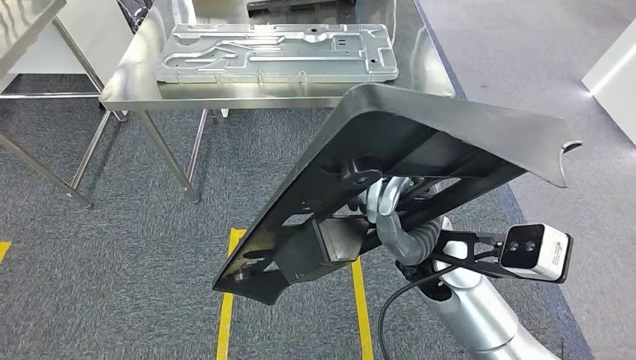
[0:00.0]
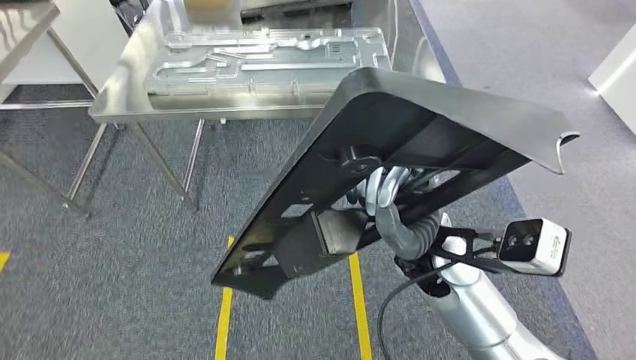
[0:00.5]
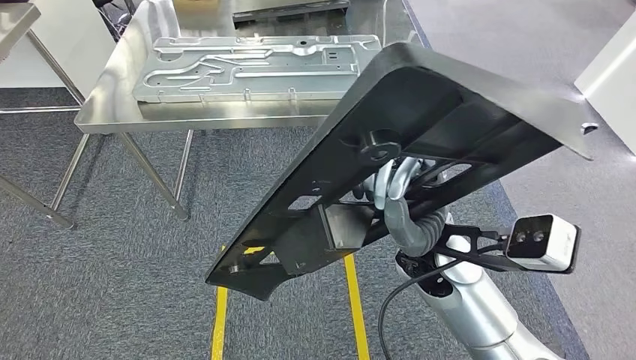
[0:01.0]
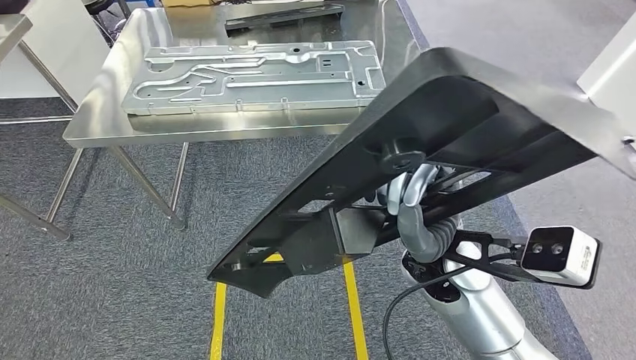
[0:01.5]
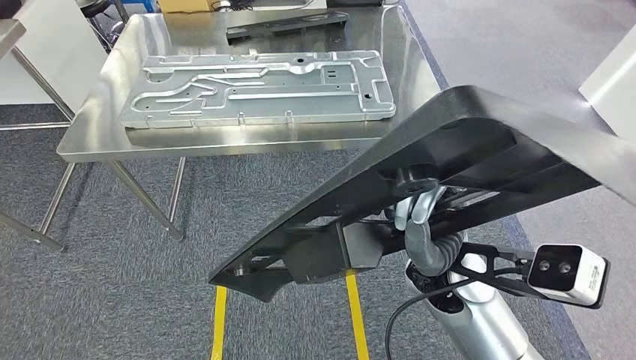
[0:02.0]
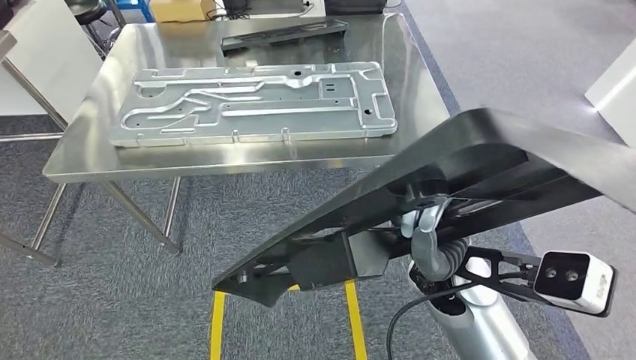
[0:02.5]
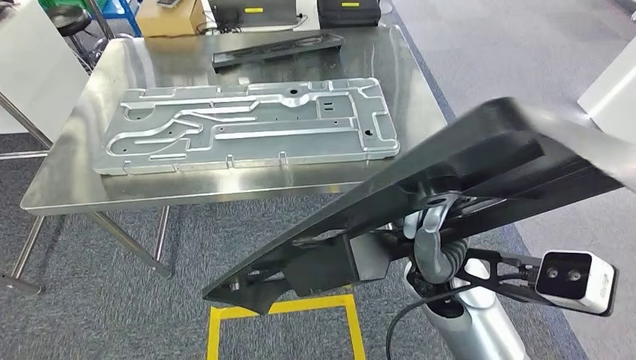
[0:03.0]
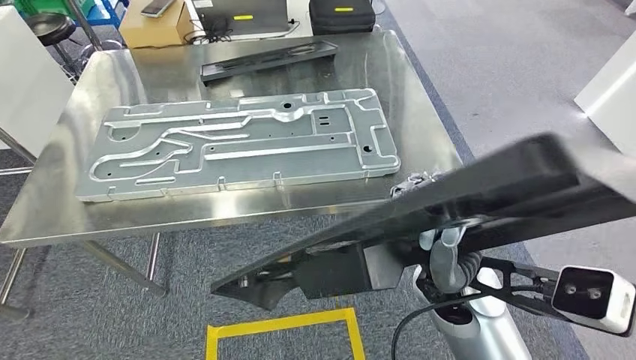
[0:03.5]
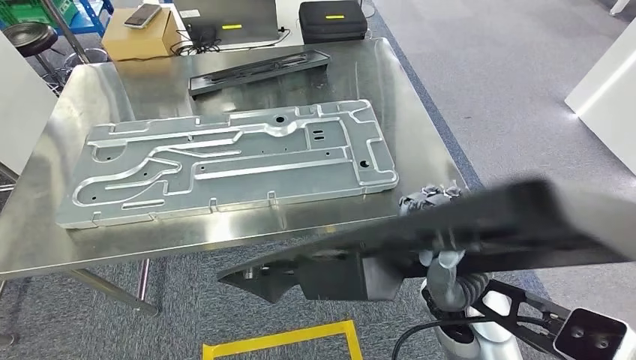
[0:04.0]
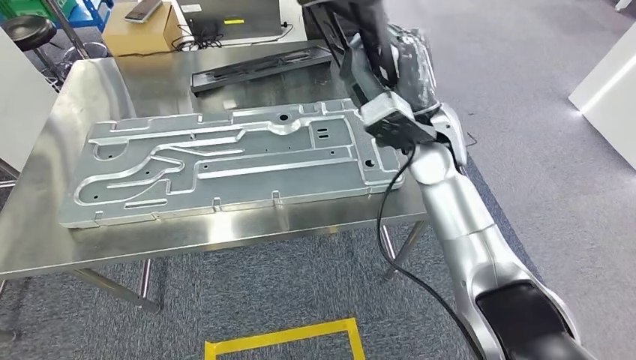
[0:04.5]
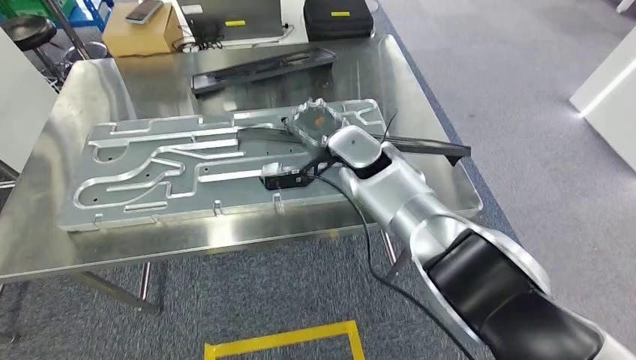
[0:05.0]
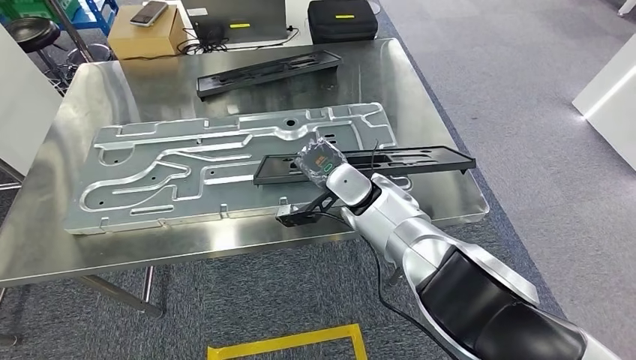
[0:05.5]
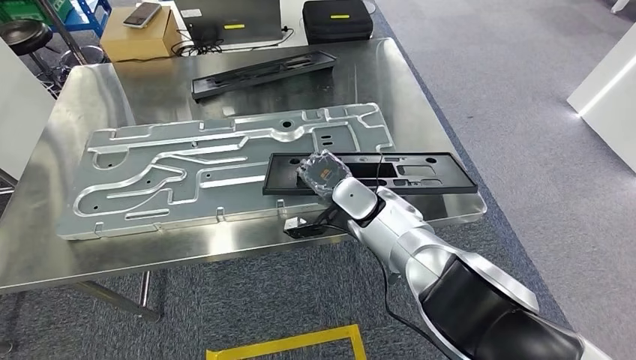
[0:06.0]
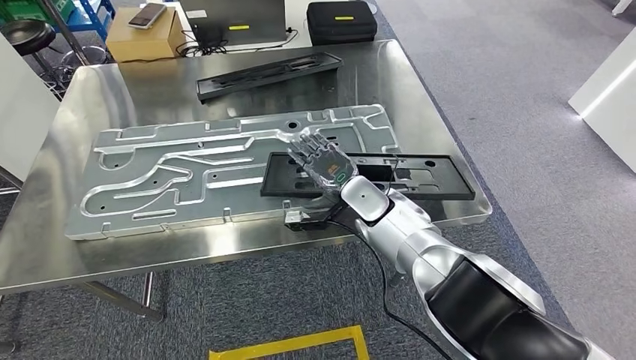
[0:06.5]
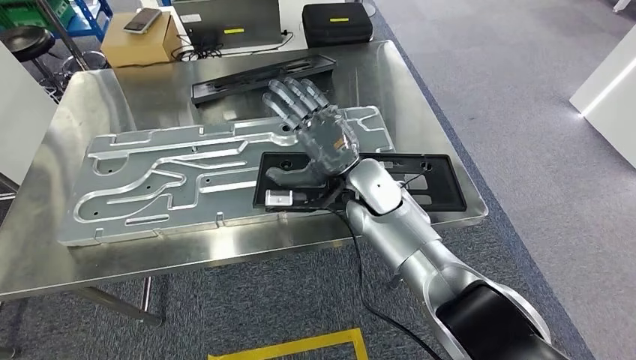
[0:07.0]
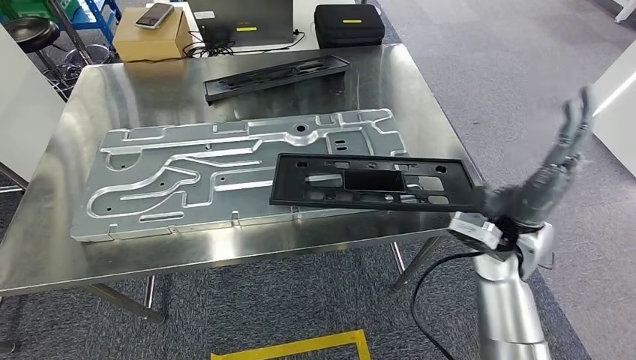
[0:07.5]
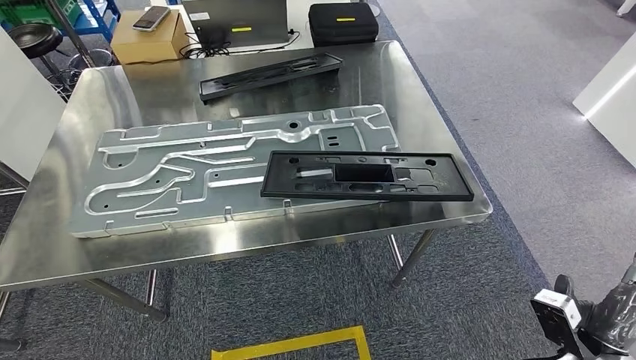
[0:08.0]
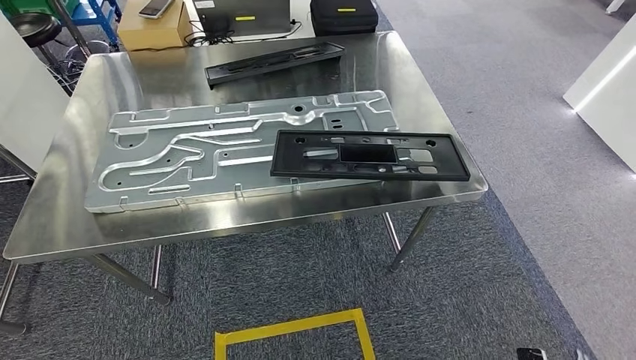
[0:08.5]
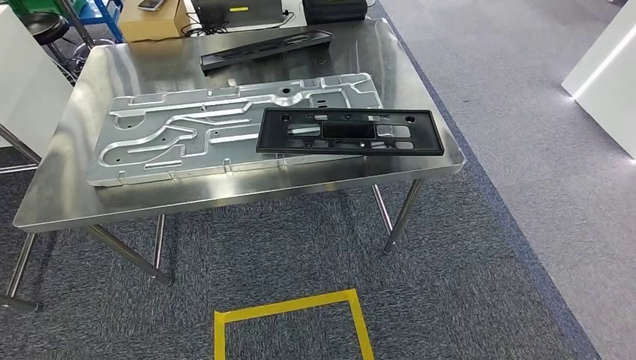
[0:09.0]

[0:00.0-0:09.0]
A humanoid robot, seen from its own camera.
Step, 0:00.0 to 0:03.5: Move the large material to the workbench.
Step, 0:04.0 to 0:08.0: Insert the large material into the corresponding slot on the workbench.

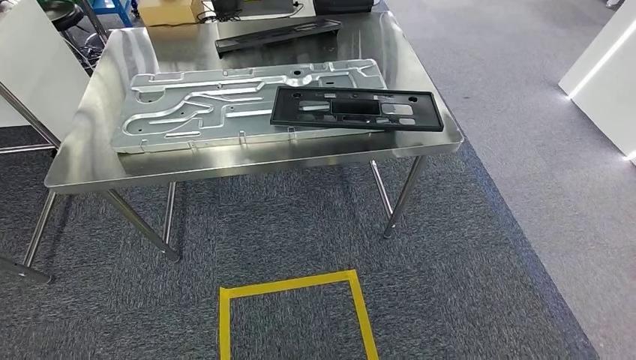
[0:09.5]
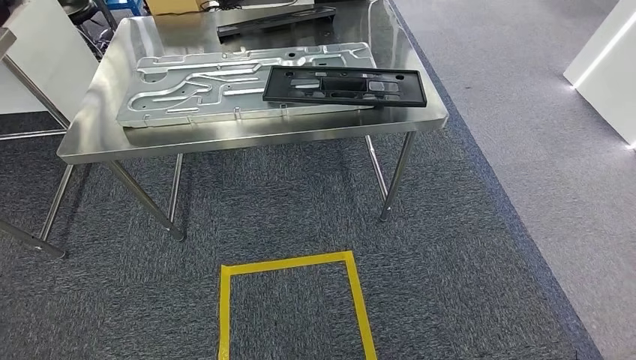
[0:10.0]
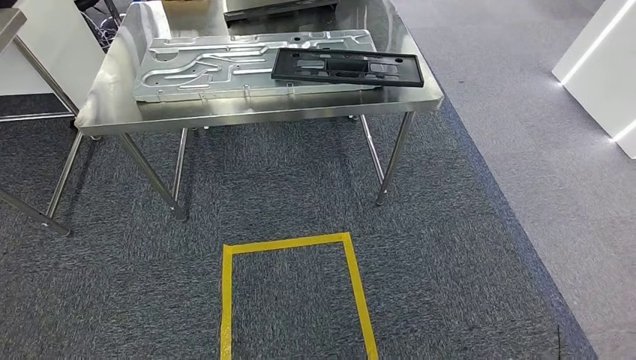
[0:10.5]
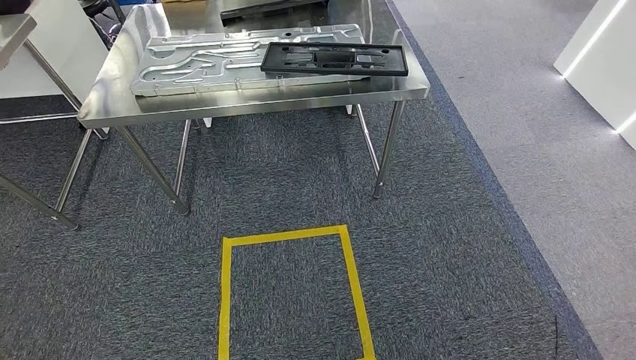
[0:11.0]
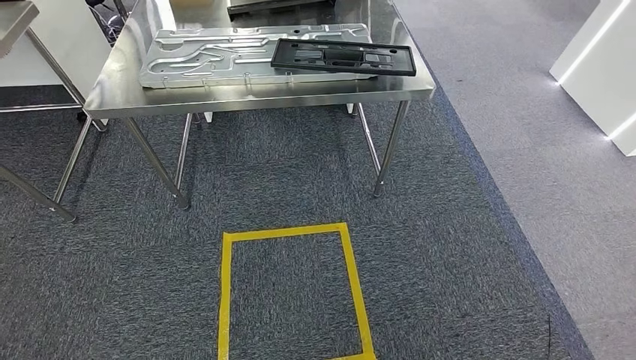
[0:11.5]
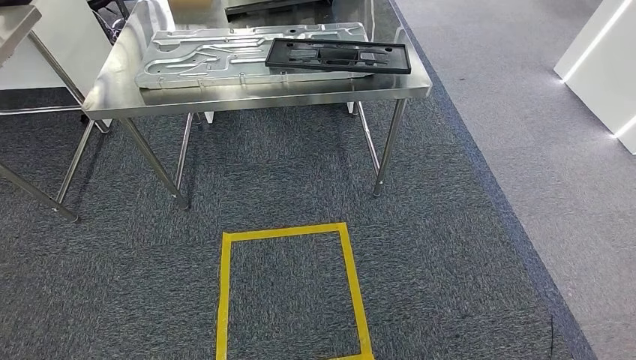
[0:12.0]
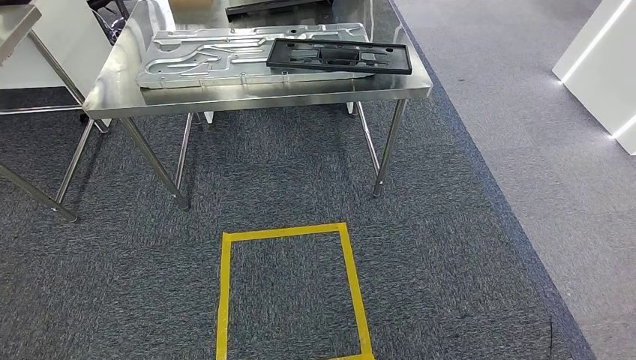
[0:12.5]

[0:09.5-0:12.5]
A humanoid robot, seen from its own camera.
Step, 0:09.5 to 0:12.5: Return to the initial position at the shelf.
0:11.0 to 0:12.5: There are only small adjustments of the hands.
